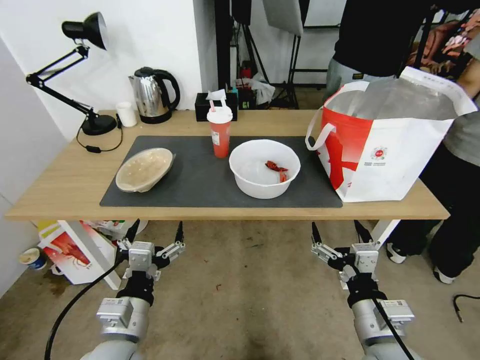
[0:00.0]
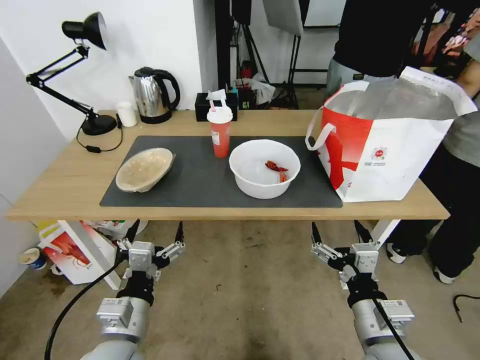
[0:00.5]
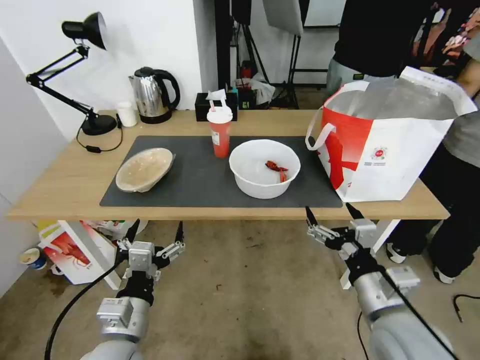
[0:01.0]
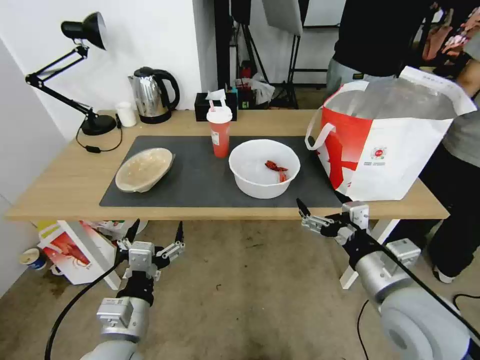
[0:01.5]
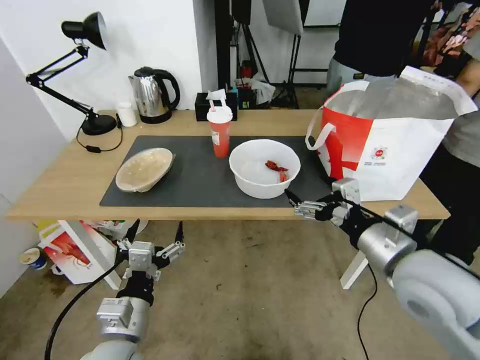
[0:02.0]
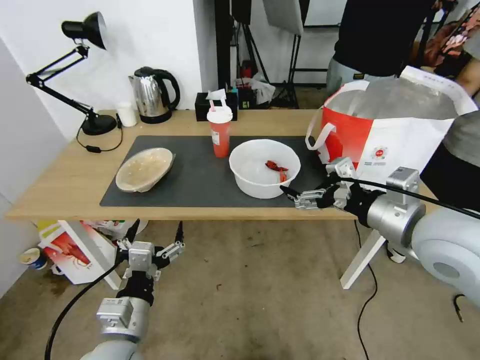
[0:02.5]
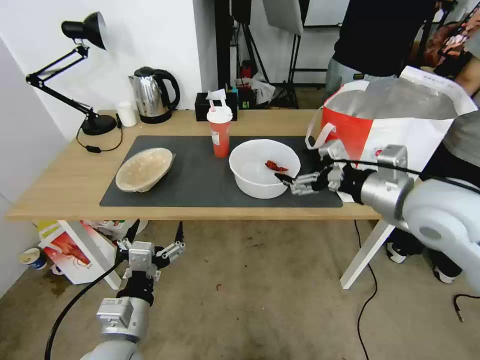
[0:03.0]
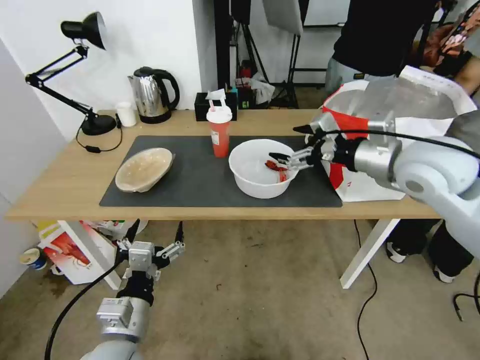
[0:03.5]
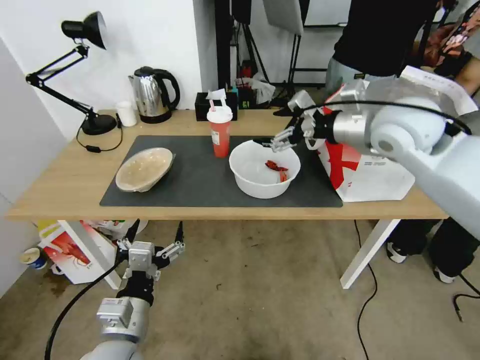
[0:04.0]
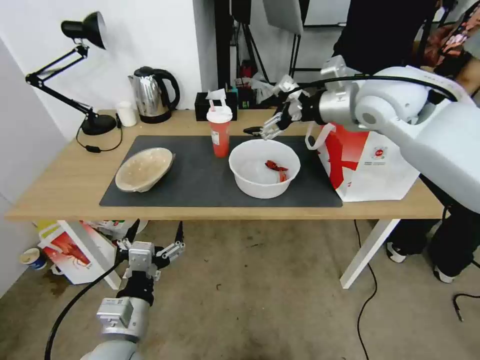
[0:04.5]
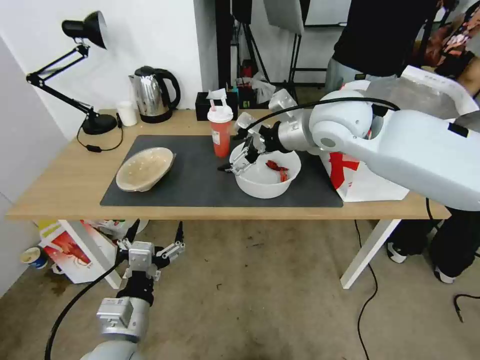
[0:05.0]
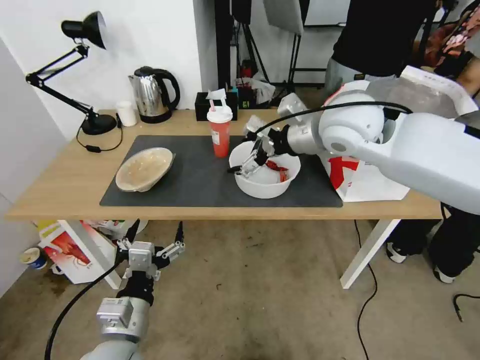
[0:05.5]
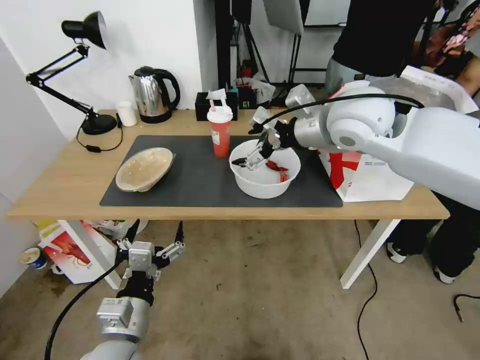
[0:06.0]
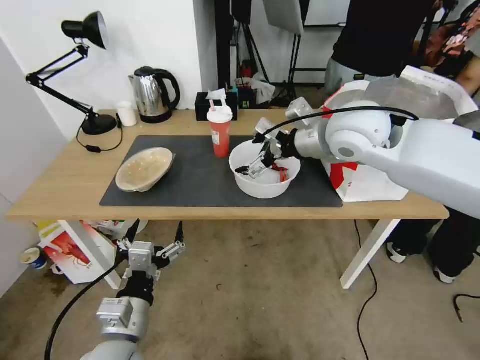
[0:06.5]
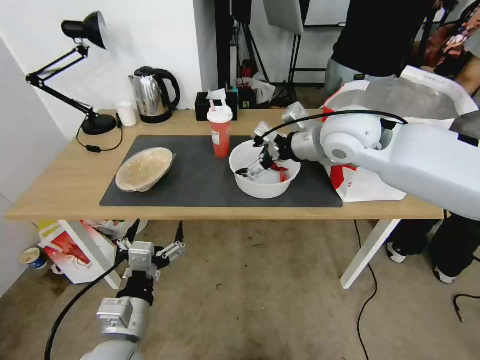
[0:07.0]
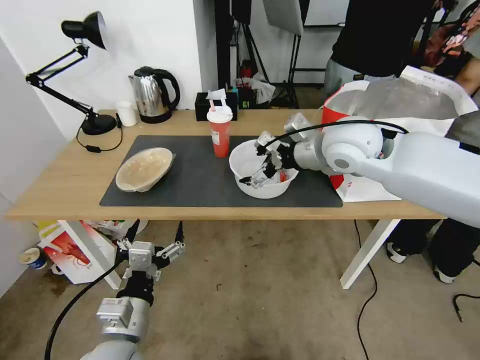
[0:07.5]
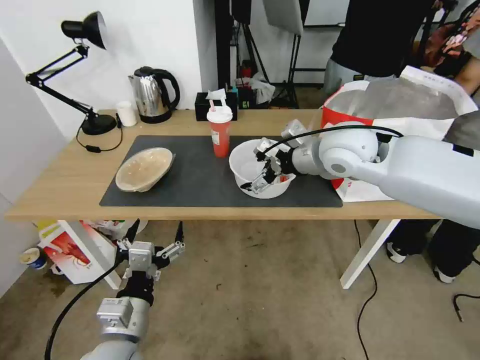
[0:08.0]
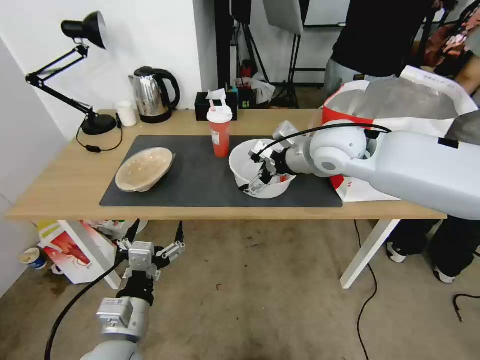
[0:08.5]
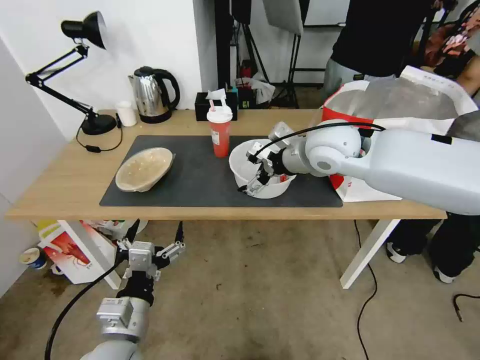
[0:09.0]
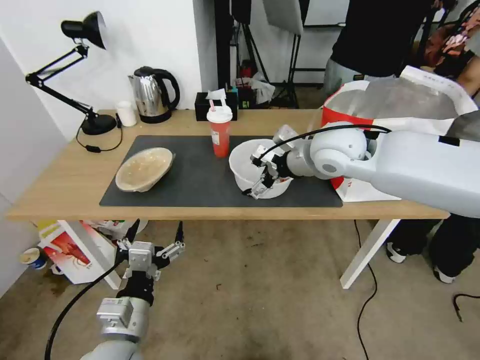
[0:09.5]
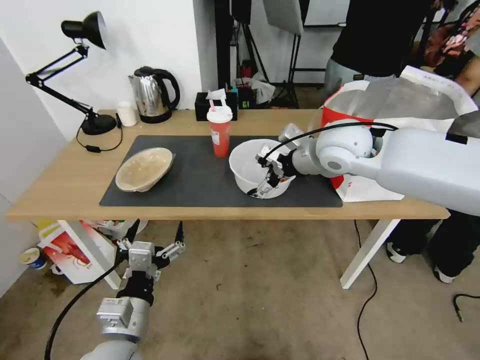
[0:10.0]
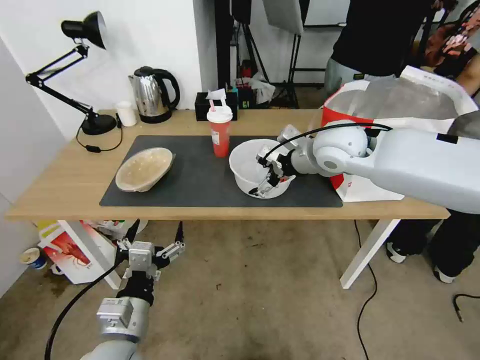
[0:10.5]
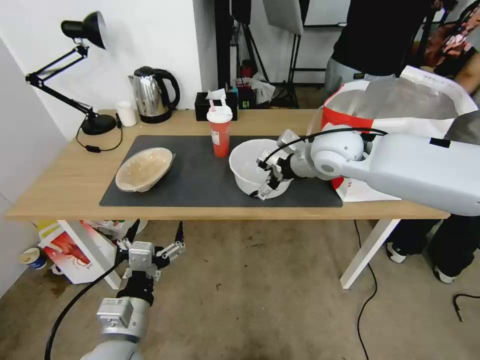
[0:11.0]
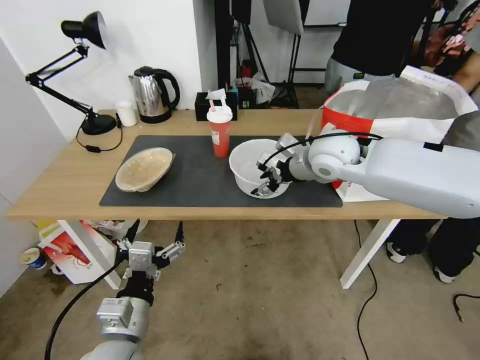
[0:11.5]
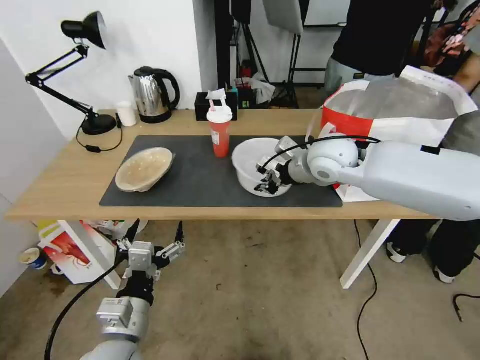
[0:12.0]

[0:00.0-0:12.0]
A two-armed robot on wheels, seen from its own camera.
Task of the whole recording: Pick up the trash from the table and place it into the takeout bag.
0:02.0 to 0:04.0: The right gripper moves forward and upward, some 25 cm.
0:04.0 to 0:06.0: The right gripper goes roughly 10 cm to the left.
0:06.0 to 0:08.0: The right gripper moves downward, about 5 cm.
0:08.0 to 0:10.0: There are only small adjustments of the grippers.
0:10.0 to 0:12.0: The right gripper closes its fingers.

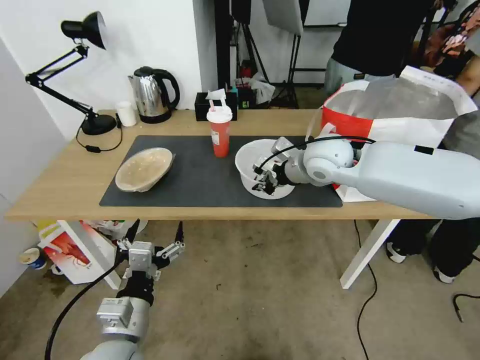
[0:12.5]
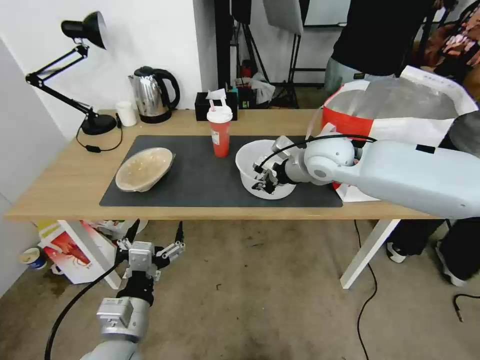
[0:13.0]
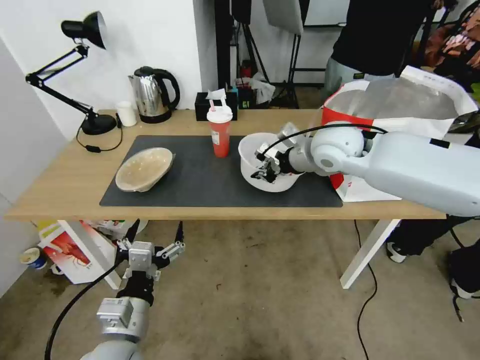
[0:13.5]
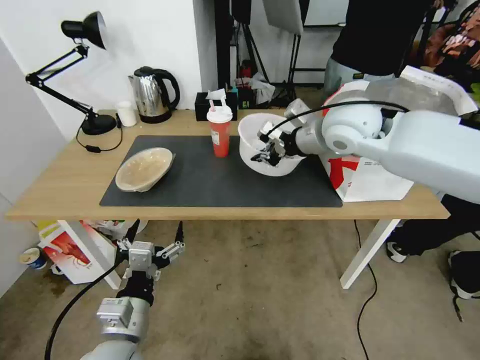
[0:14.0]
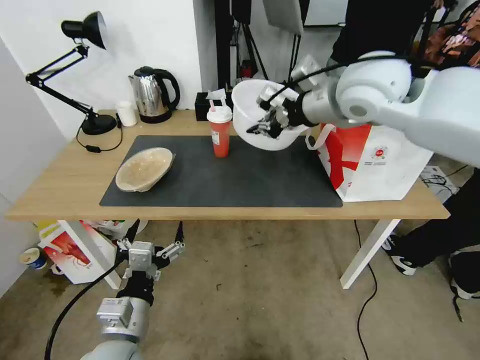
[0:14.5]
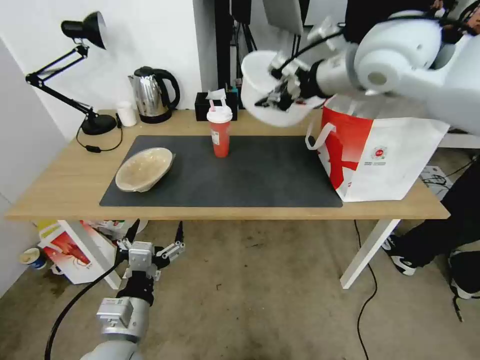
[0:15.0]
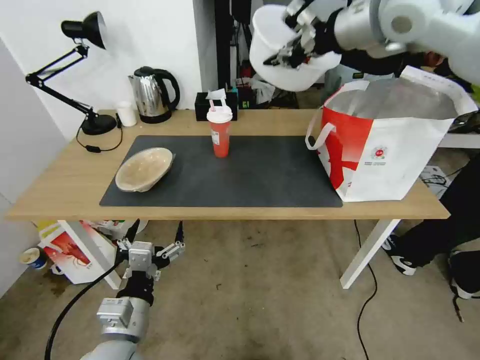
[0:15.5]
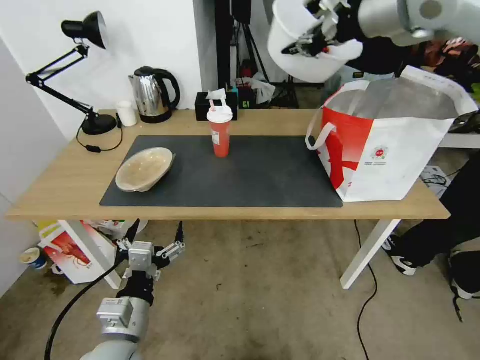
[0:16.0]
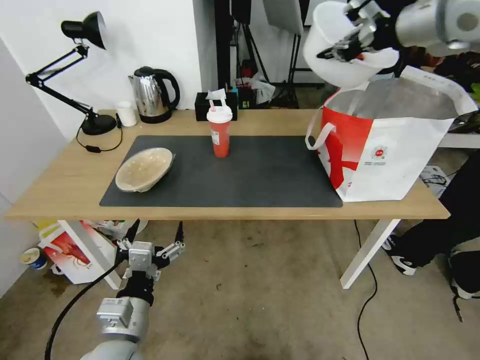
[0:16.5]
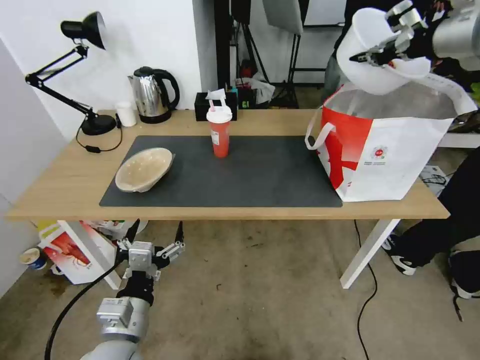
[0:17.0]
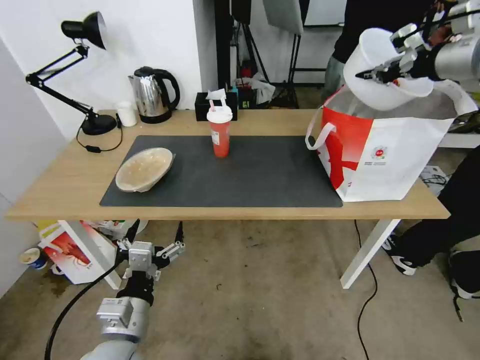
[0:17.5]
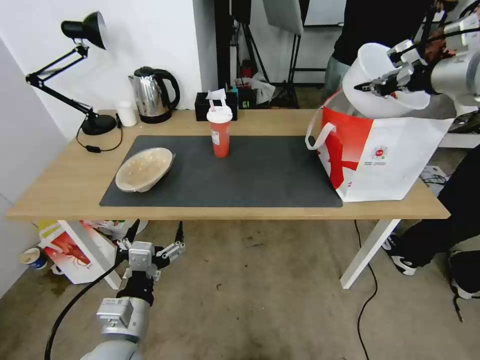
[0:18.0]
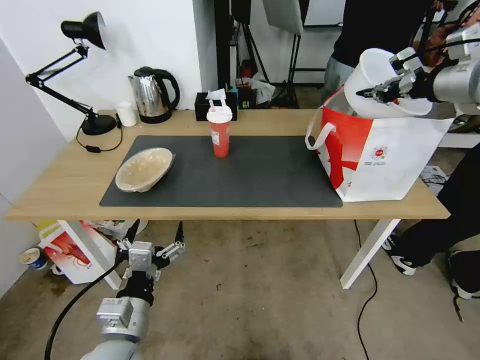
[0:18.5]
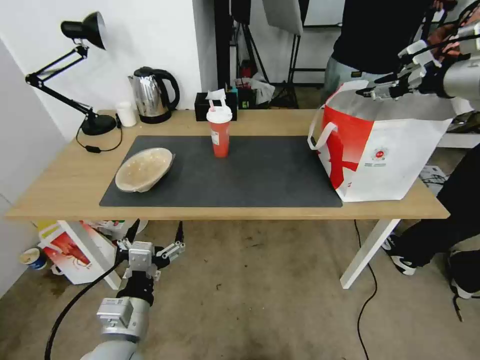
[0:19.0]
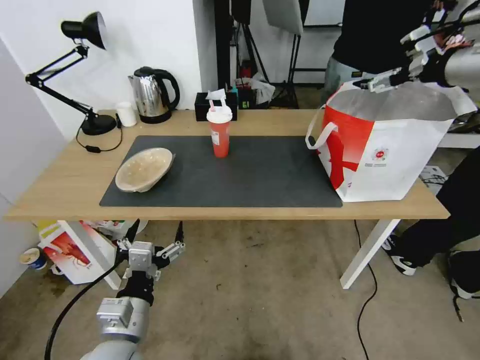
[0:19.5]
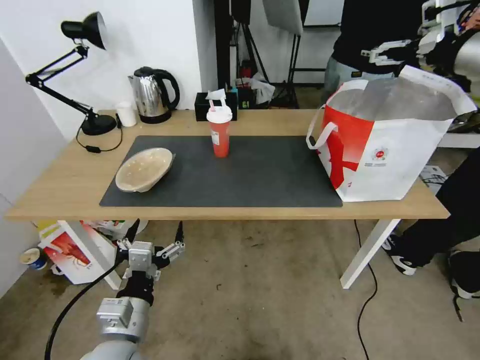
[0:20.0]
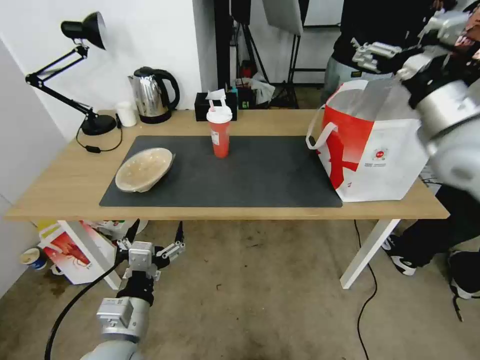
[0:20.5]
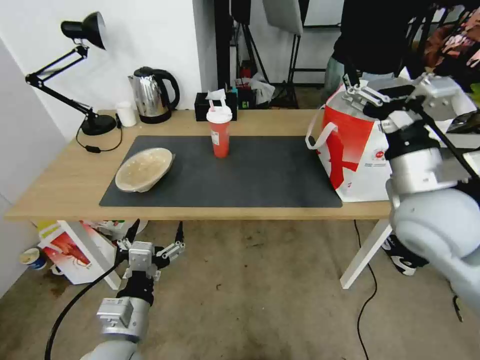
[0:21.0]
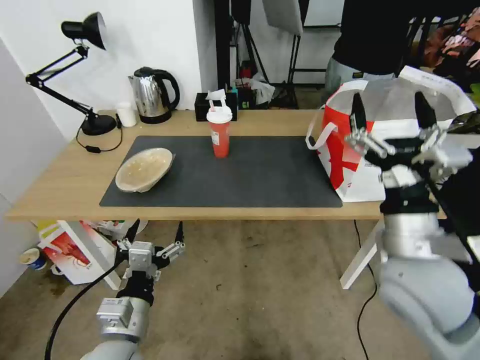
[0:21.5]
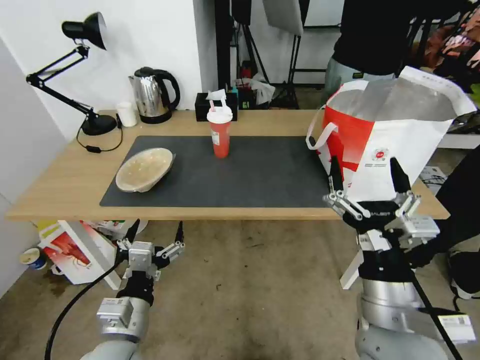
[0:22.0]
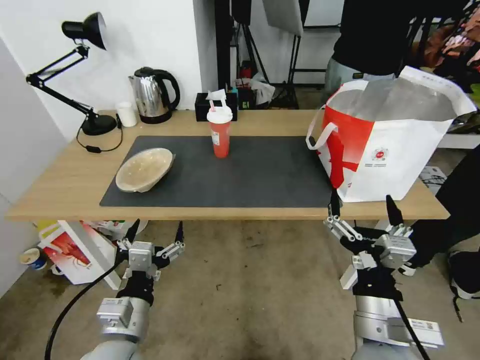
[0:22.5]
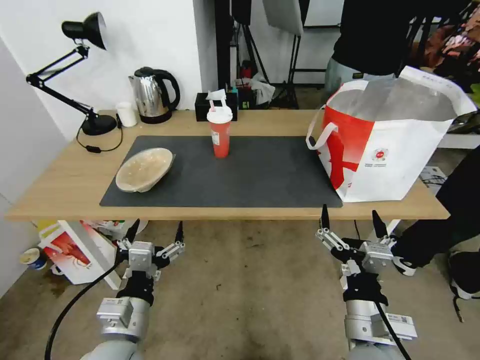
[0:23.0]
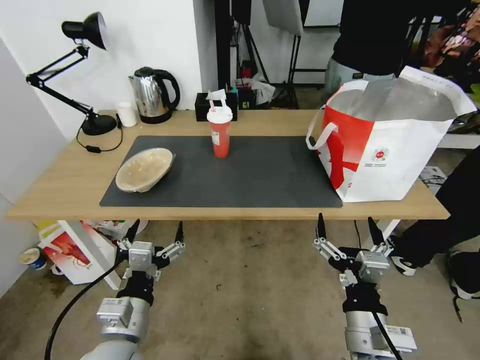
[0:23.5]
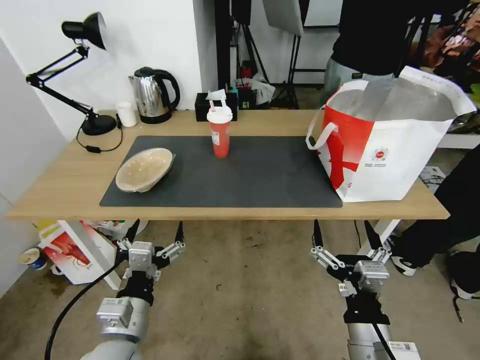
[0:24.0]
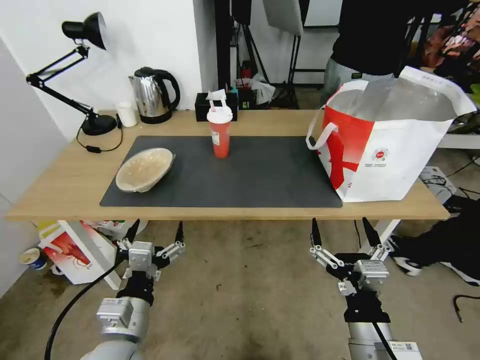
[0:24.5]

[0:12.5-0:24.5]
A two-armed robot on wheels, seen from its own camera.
Task of the whole recording: Pick up the trash from the table and place it into the takeout bag.
0:12.5 to 0:14.5: The right gripper shifts roughly 15 cm upward.
0:14.5 to 0:16.5: The right gripper heads to the right and upward, covering about 15 cm.
0:16.5 to 0:18.5: The right gripper is displaced to the right and downward by some 15 cm.
0:18.5 to 0:20.5: The right gripper travels backward by approximately 5 cm, and opens.
0:20.5 to 0:22.5: The right gripper shifts about 40 cm downward, backward and to the left.
0:22.5 to 0:24.5: The grippers make only small movements.

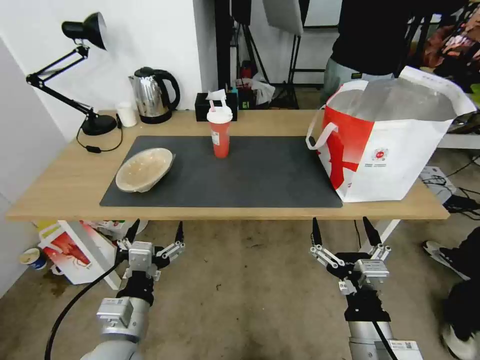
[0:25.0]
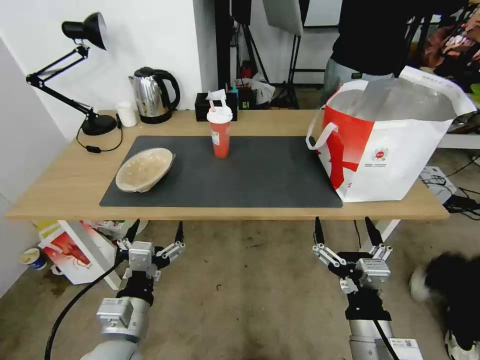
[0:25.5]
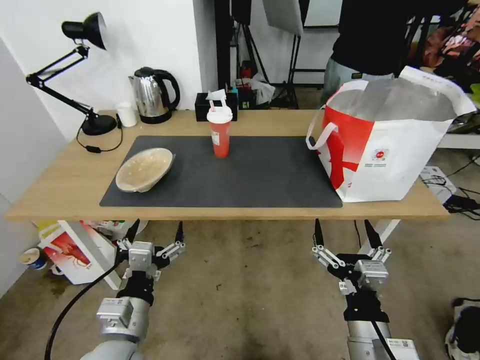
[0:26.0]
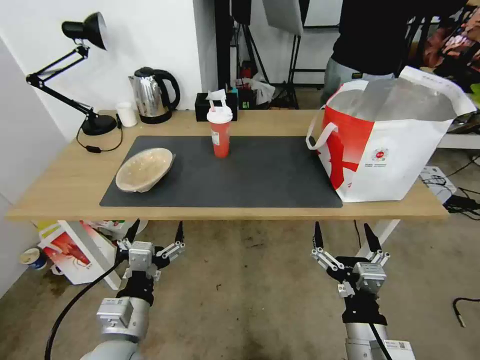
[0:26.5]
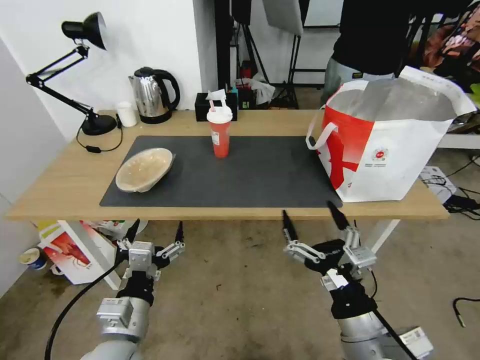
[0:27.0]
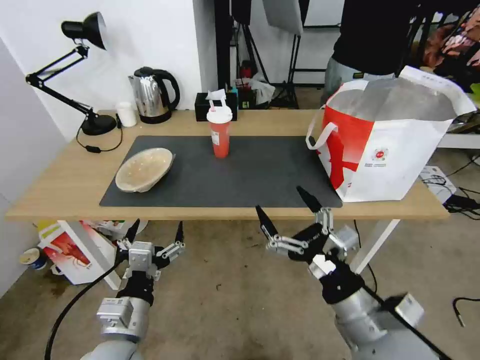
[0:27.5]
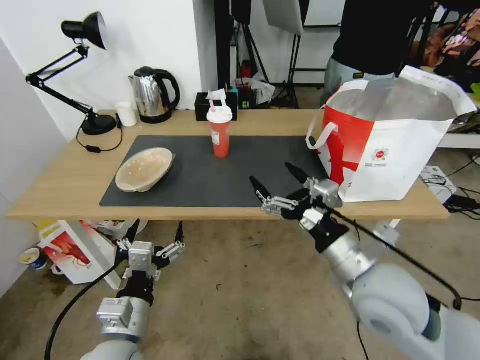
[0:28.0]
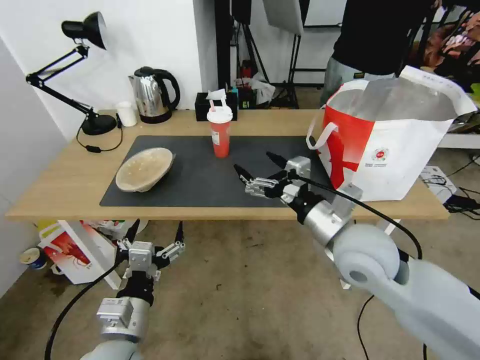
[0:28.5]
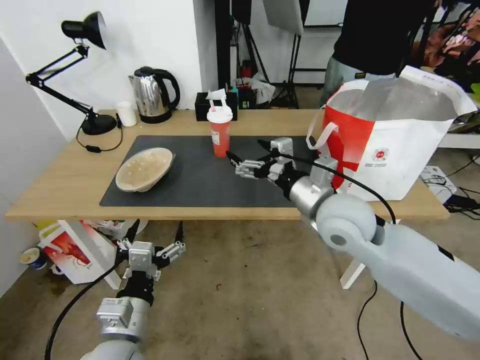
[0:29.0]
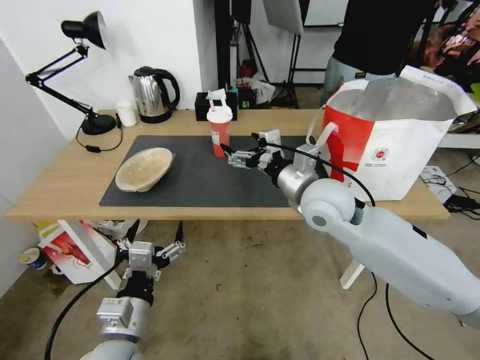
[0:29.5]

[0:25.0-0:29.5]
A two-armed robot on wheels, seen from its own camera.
Task of the whole recording: Pick up the trash from the table and place it into the takeout bag.
0:27.0 to 0:29.5: The right gripper moves forward, about 25 cm.
